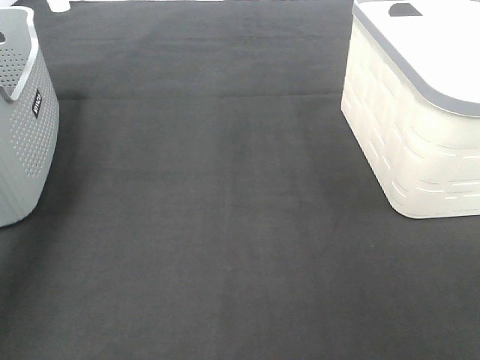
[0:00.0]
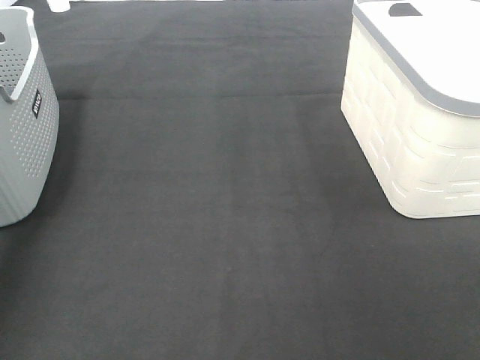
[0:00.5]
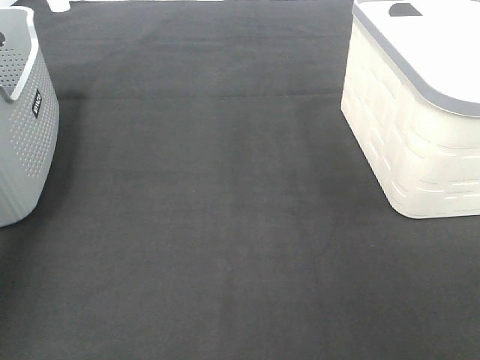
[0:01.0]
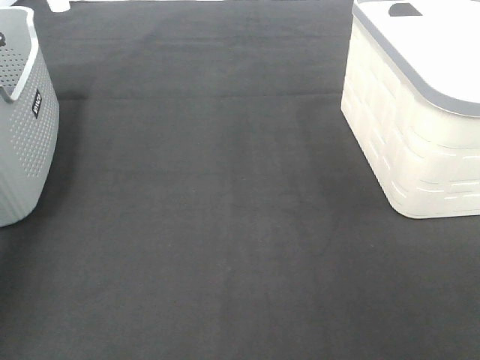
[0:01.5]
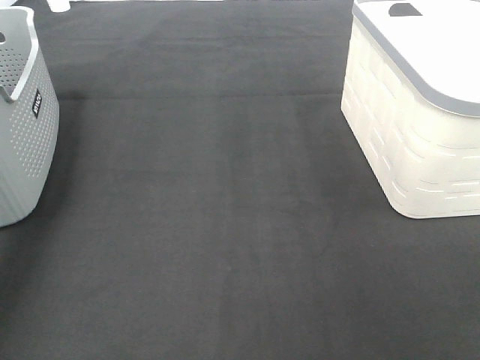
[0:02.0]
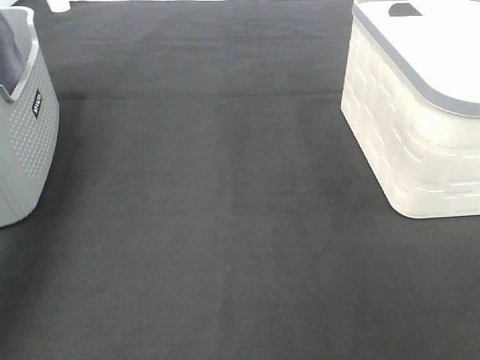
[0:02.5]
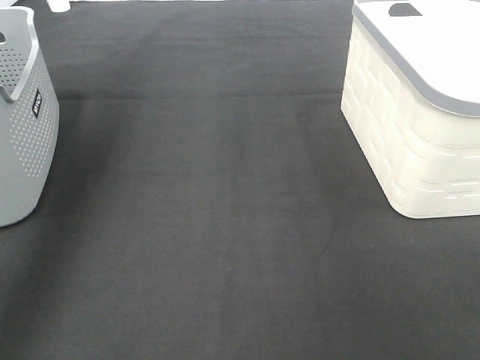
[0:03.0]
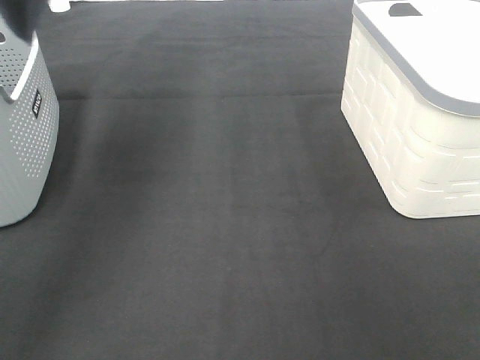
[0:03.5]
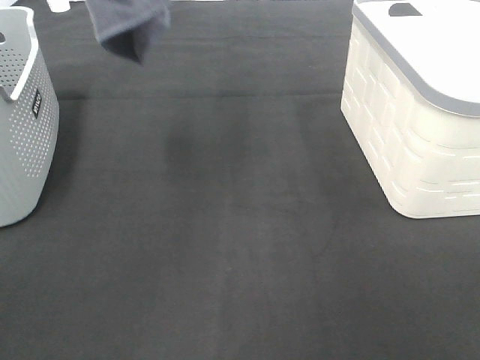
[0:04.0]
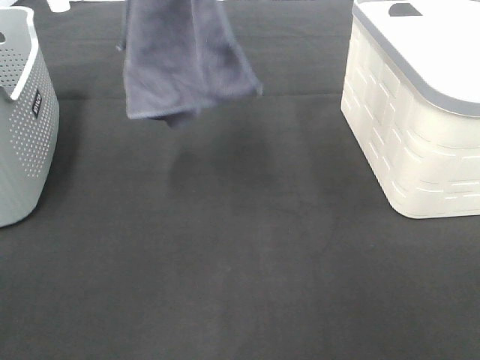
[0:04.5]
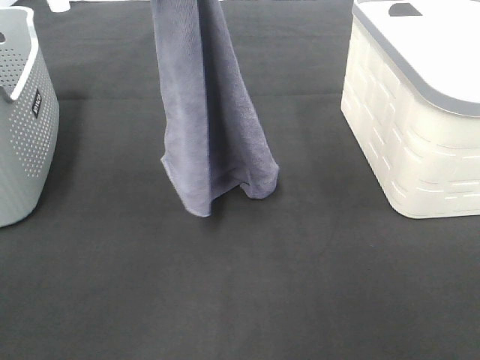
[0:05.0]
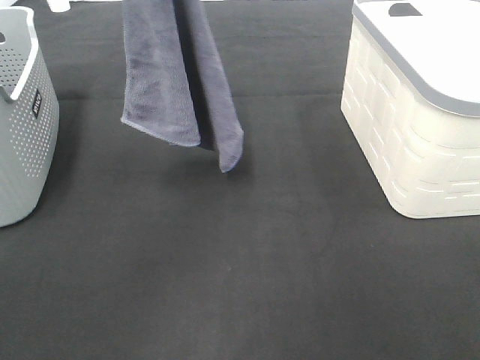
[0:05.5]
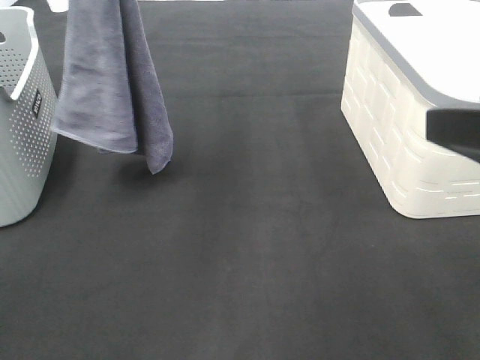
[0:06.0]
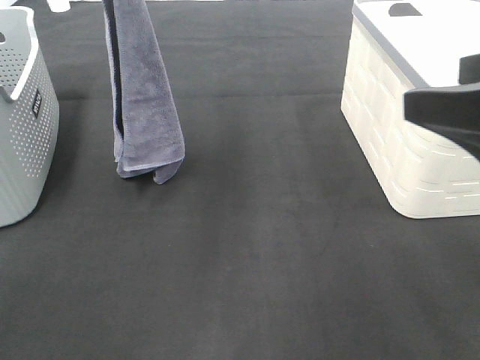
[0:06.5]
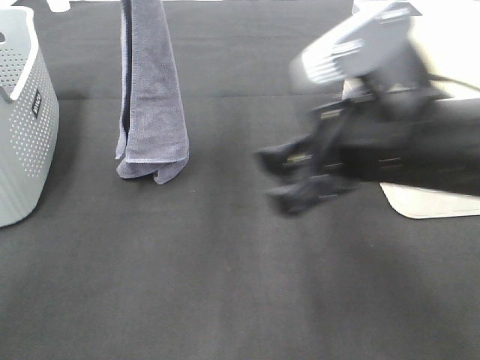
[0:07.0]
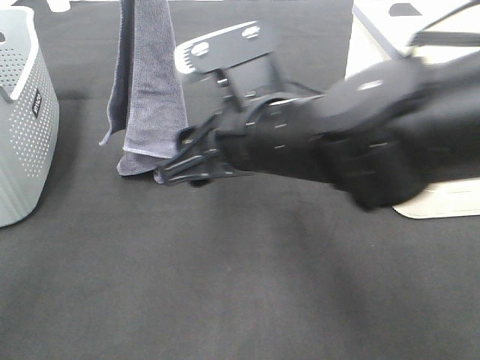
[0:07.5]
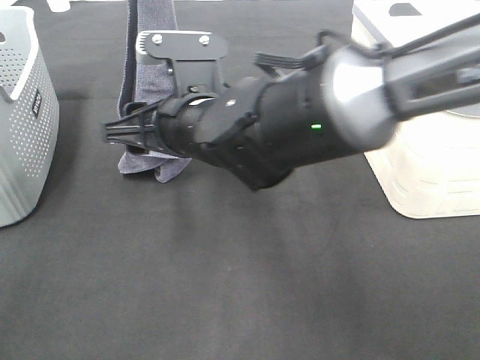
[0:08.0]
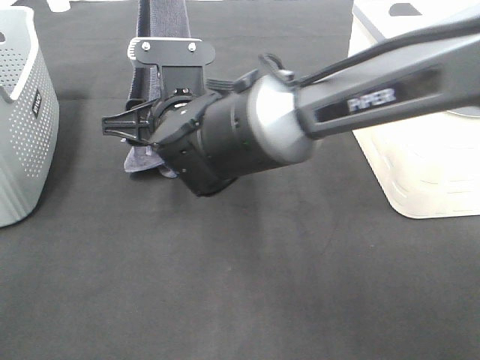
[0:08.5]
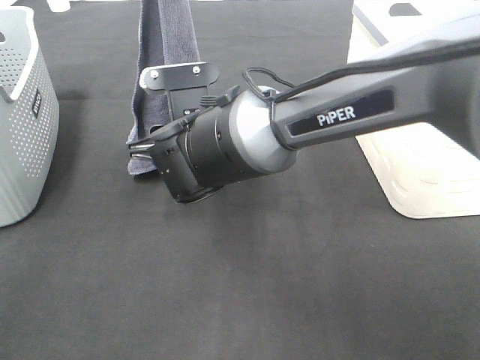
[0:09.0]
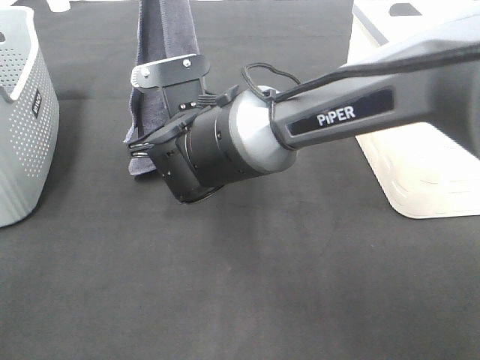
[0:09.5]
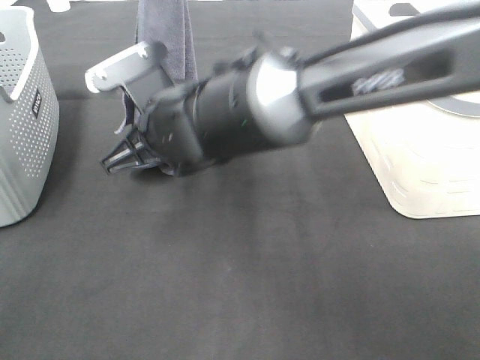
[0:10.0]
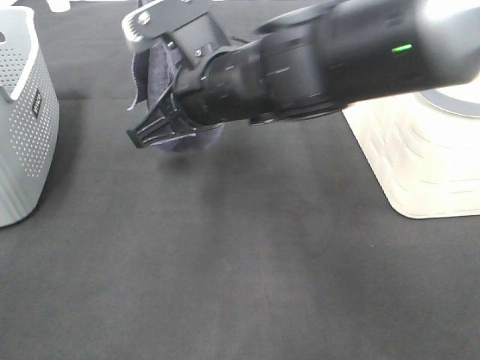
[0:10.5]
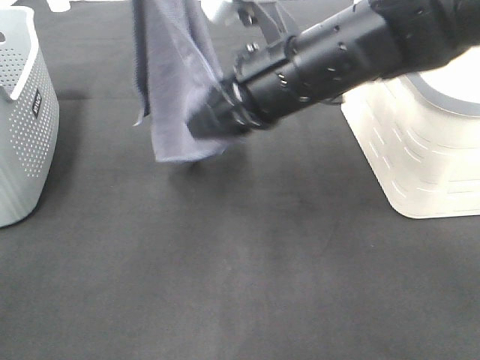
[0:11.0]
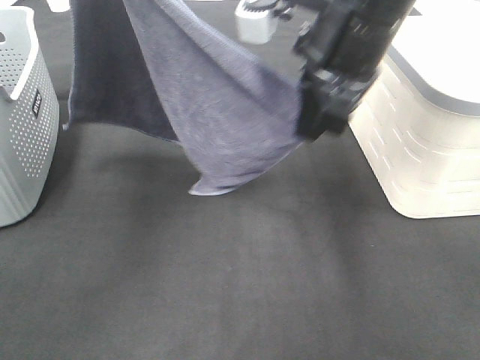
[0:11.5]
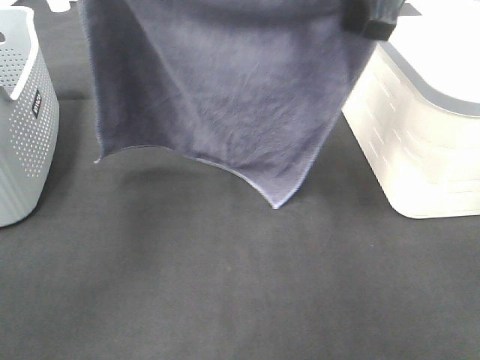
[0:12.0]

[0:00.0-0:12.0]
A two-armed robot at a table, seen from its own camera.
Task of the whole recording: Remove the towel and place it.
Step, 0:04.5 to 0:08.5: Right hand: grab a corner of the grey towel and straighten it.
Step, 0:09.0 to 0:11.5: Left hand: spread the grey towel flat on the table.
Step, 0:09.0 to 0:11.5: Right hand: spread the grey towel flat on the table.
0:02.0 to 0:04.0: The left gripper heads upward and to the right, covering about 30 cm.
0:04.0 to 0:06.0: The right gripper is displaced forward by approximately 10 cm; the left gripper shifts approximately 10 cm downward.
0:06.0 to 0:08.0: The right gripper heads to the left, forward and downward, covering about 35 cm, while the left gripper changes place by roughly 5 cm.
0:08.0 to 0:10.0: The right gripper closes up.
0:10.0 to 0:12.0: The right gripper heads upward and to the right, covering about 25 cm. The left gripper is displaced to the left by about 10 cm.

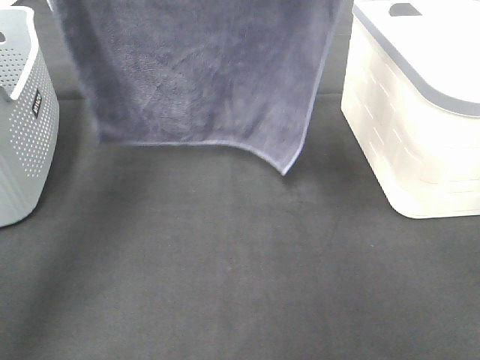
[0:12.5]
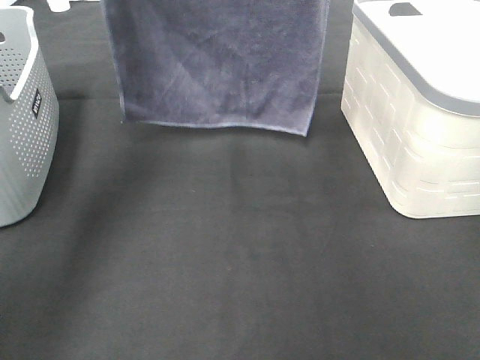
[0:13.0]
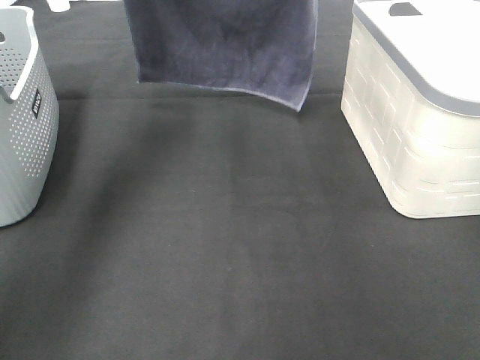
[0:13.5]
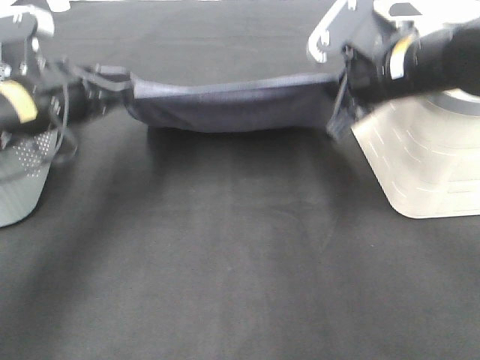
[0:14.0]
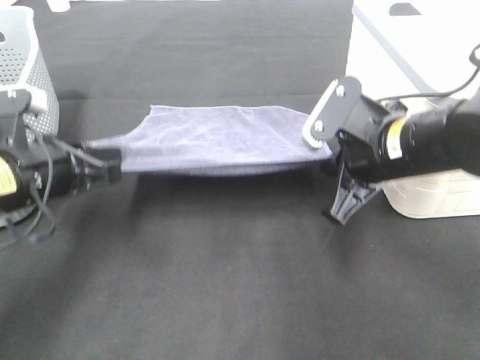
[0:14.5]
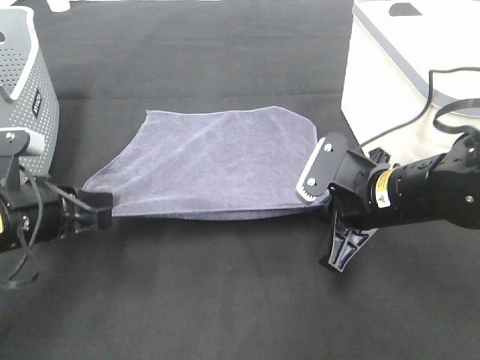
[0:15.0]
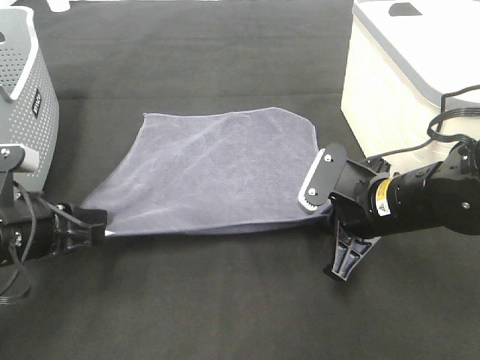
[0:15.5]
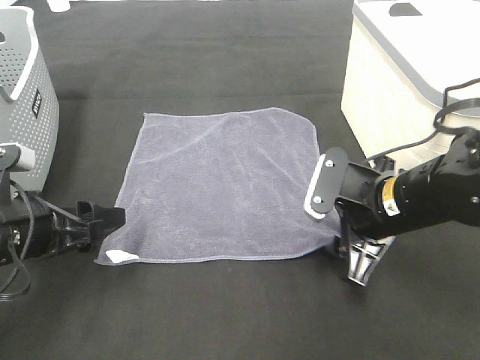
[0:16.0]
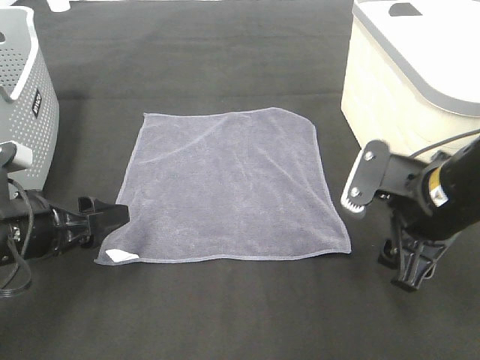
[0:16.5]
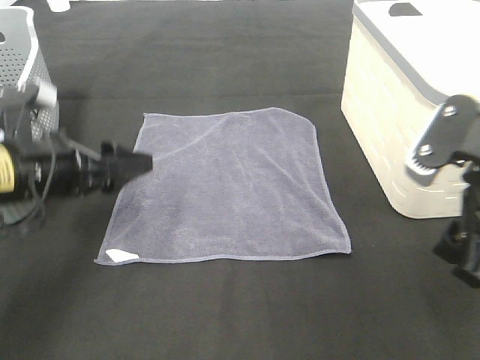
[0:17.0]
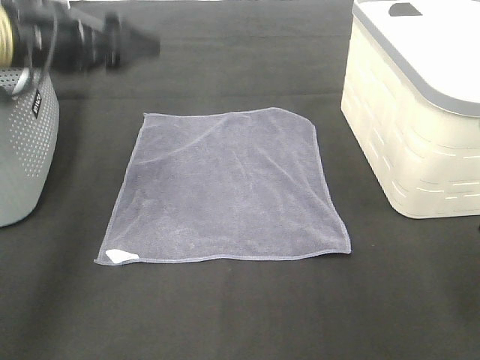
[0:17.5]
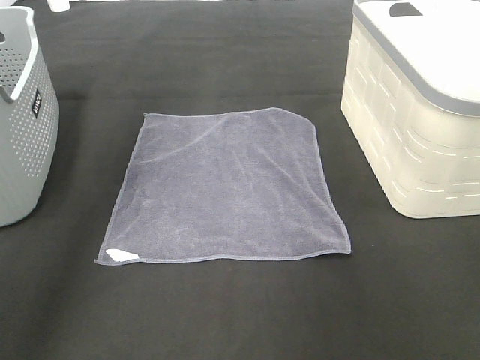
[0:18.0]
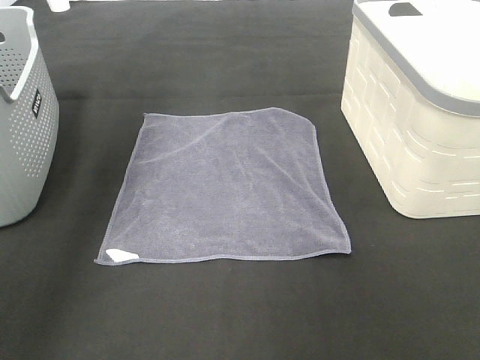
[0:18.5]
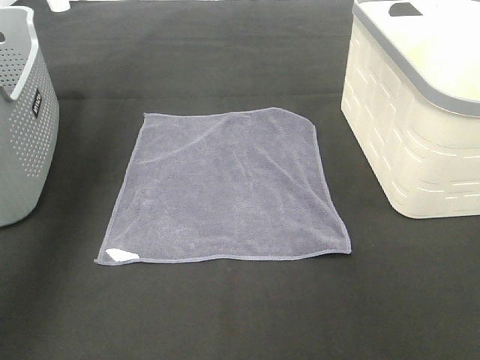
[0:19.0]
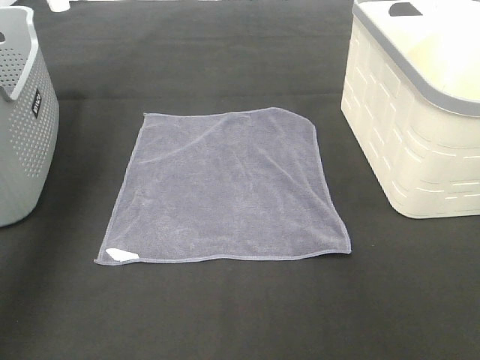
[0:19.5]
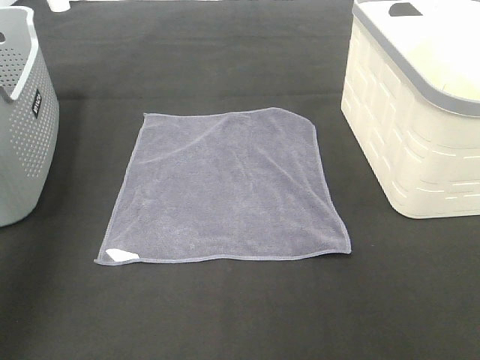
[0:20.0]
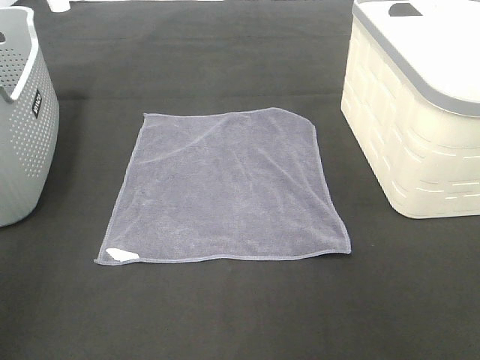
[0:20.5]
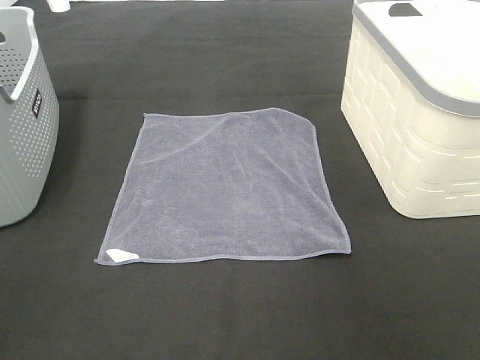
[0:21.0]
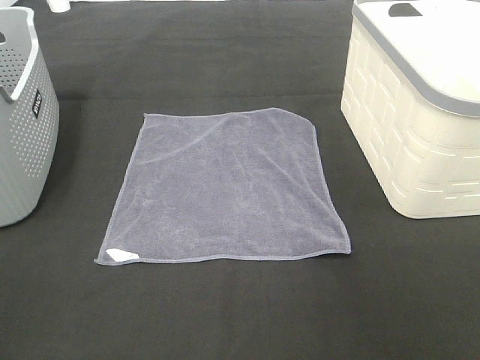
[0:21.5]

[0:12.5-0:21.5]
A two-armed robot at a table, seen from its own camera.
Task of the whole recording: Remove the towel and place it.
0:12.5 to 0:14.5: Both grippers move downward, approximately 20 cm.
0:14.5 to 0:17.0: The right gripper moves backward, upward and to the right, about 10 cm, and opens its fingers. The left gripper opens.
0:17.0 to 0:19.5: The right gripper travels upward and forward by some 30 cm. Meanwhile the left gripper heads upward, covering about 30 cm.
0:19.5 to 0:21.5: The left gripper shifts approximately 40 cm backward and downward.

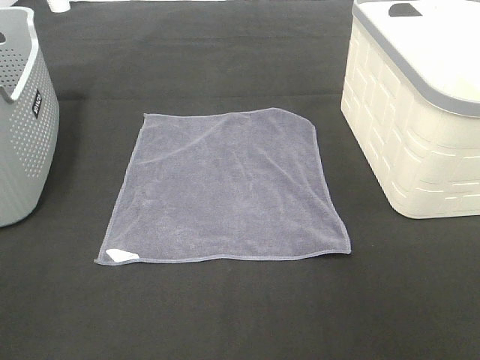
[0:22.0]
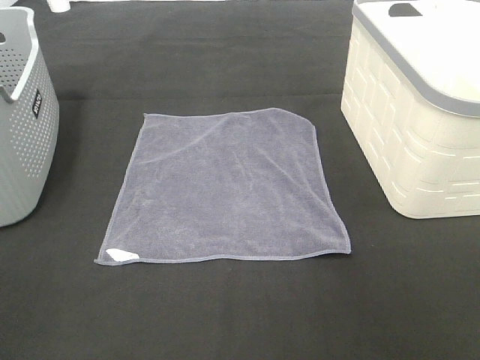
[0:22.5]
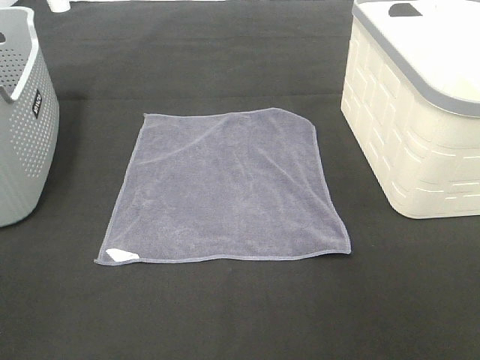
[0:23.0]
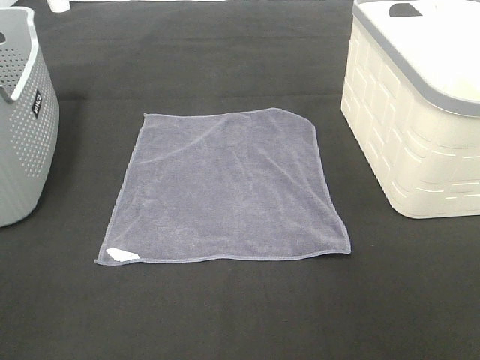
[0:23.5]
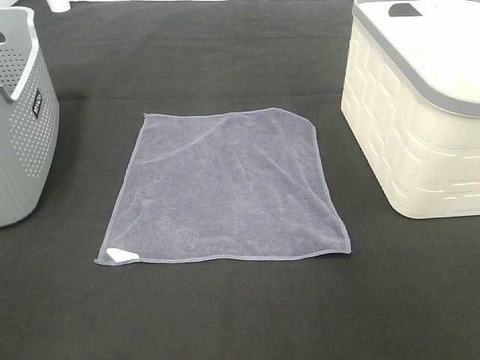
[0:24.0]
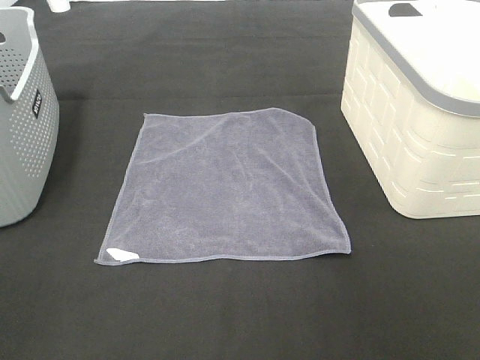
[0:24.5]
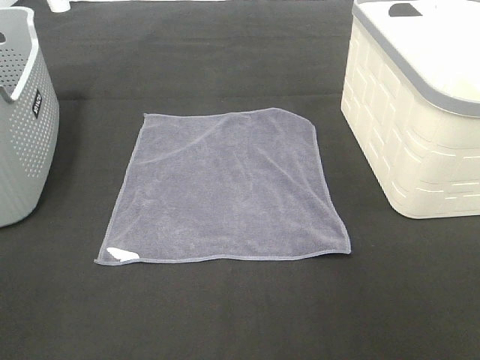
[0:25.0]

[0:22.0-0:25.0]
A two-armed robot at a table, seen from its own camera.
Task of the whole recording: Remove the towel and place it.
0:22.0 to 0:23.5: The two grippers keep their place.

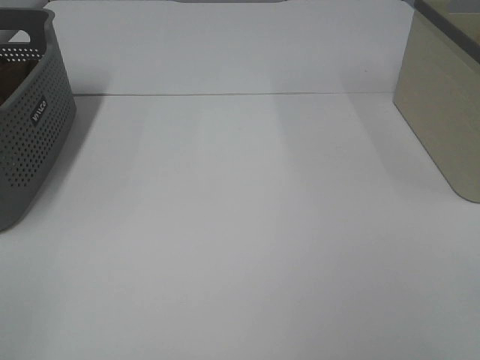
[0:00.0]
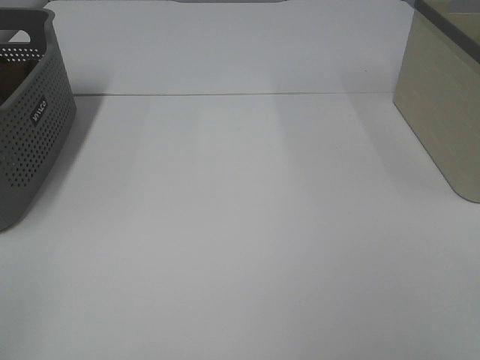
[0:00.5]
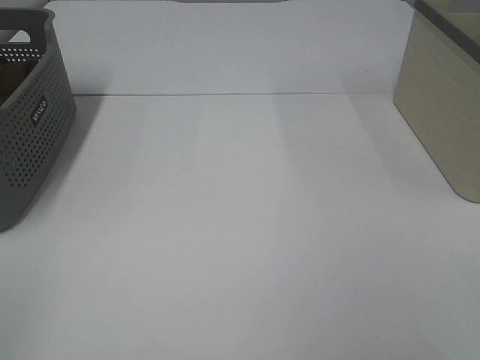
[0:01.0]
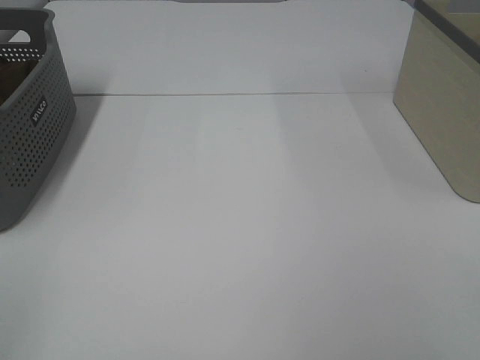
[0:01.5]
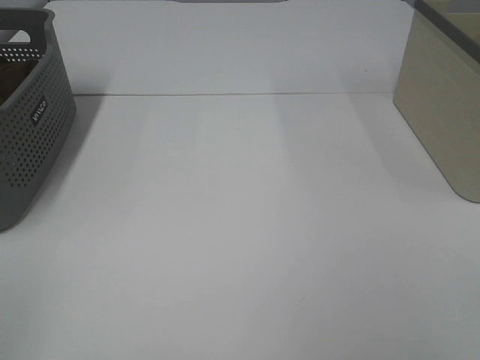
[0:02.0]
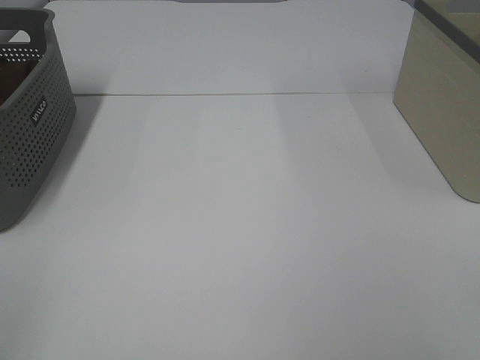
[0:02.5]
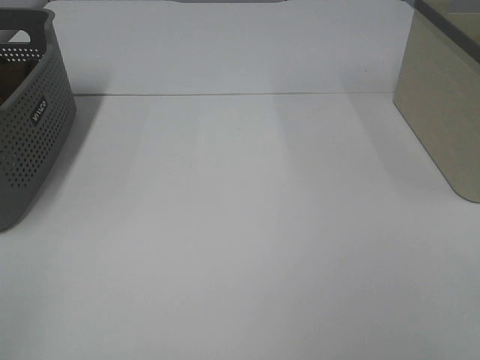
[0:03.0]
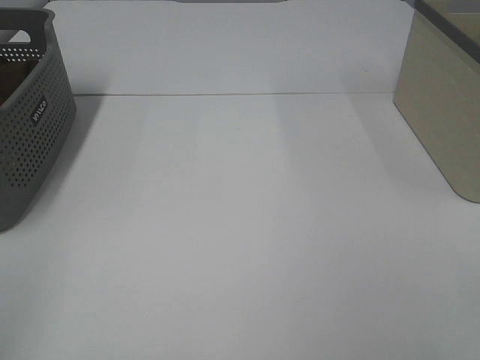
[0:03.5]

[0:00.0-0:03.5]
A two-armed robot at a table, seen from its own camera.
Task of the whole recording: Remove the towel and place it.
0:00.0 to 0:02.0: Both grippers stay put.
